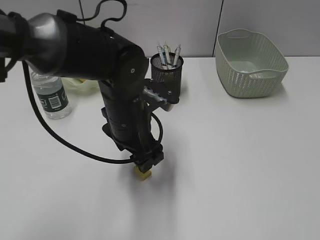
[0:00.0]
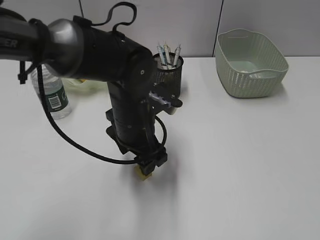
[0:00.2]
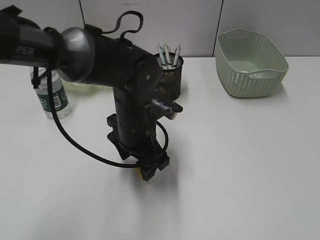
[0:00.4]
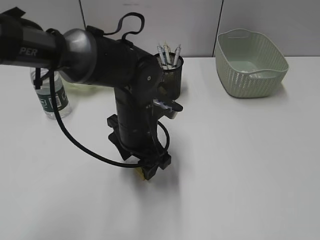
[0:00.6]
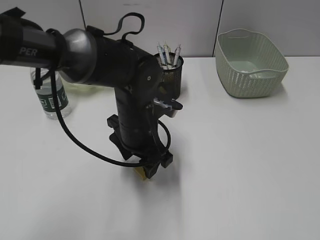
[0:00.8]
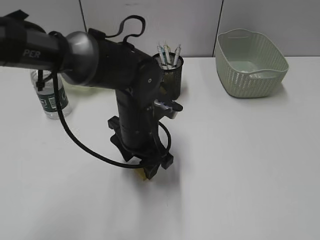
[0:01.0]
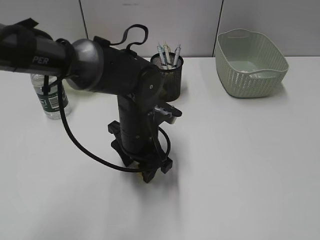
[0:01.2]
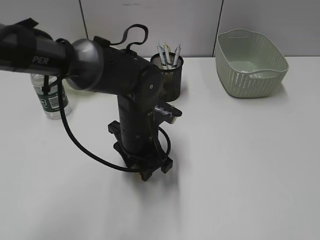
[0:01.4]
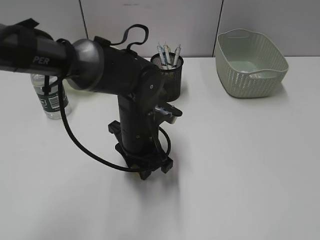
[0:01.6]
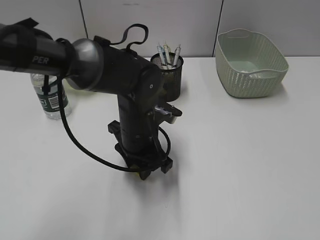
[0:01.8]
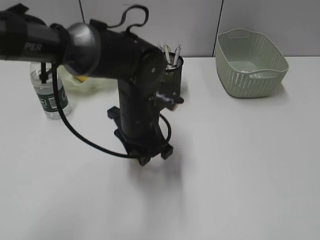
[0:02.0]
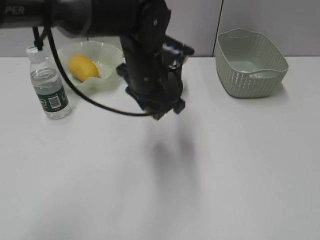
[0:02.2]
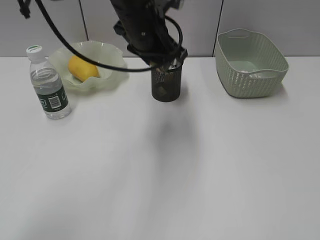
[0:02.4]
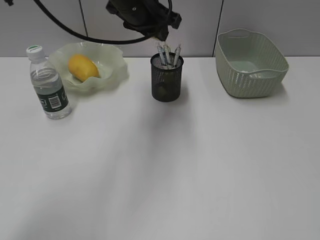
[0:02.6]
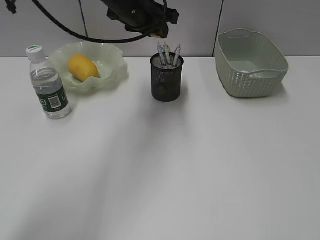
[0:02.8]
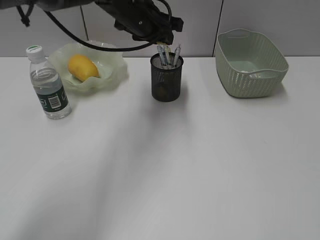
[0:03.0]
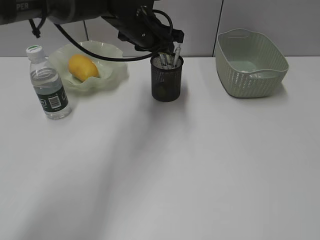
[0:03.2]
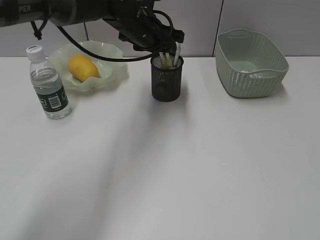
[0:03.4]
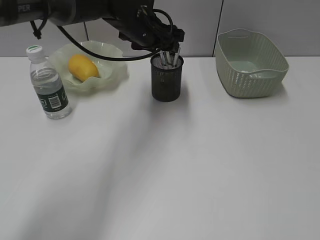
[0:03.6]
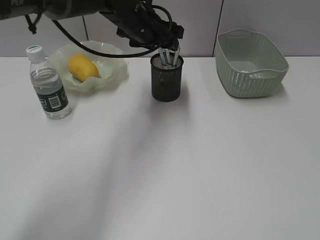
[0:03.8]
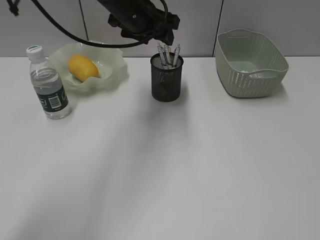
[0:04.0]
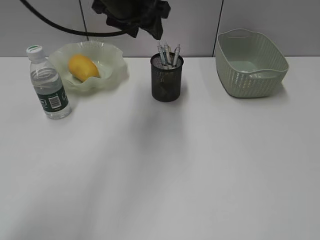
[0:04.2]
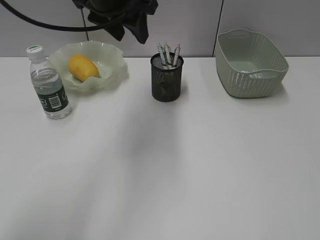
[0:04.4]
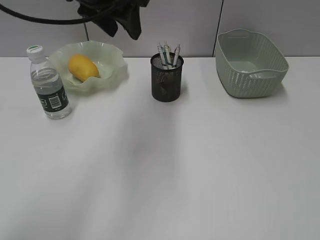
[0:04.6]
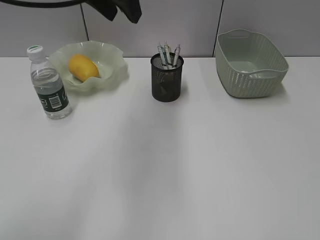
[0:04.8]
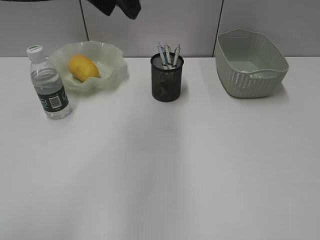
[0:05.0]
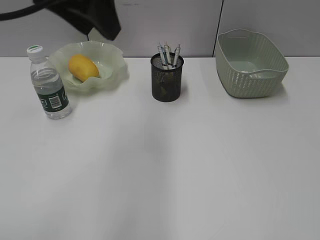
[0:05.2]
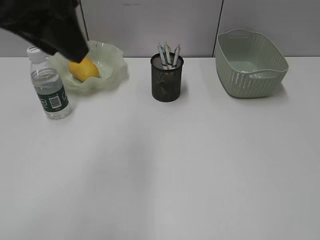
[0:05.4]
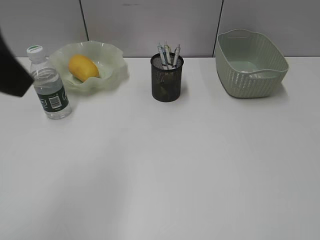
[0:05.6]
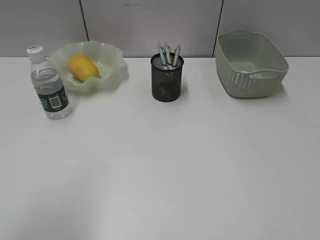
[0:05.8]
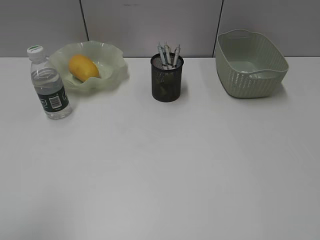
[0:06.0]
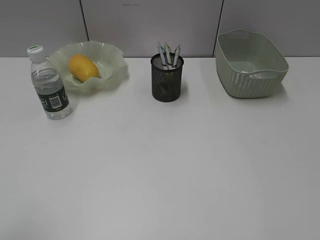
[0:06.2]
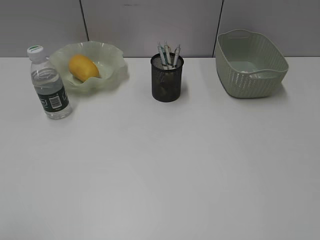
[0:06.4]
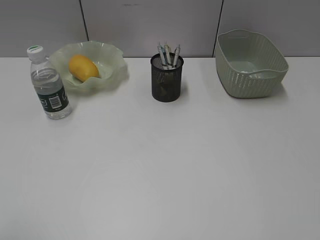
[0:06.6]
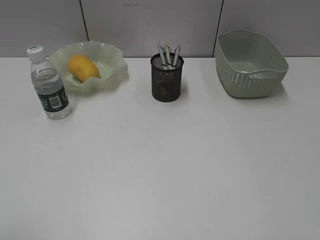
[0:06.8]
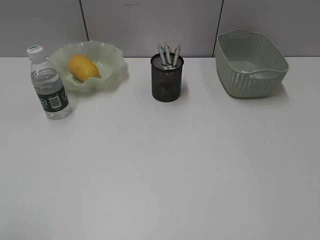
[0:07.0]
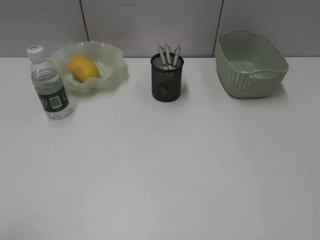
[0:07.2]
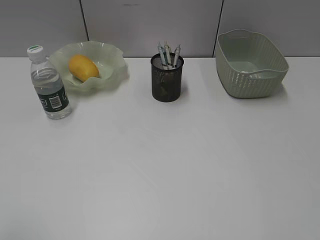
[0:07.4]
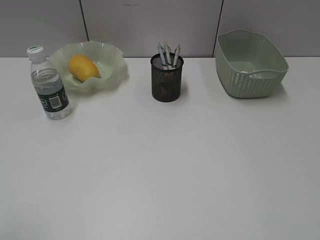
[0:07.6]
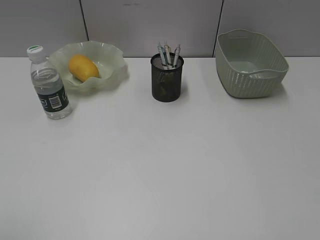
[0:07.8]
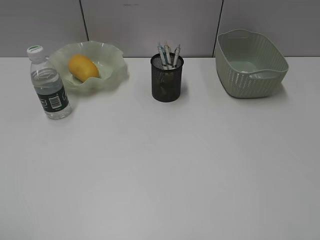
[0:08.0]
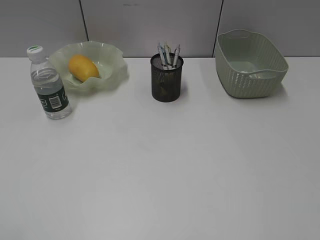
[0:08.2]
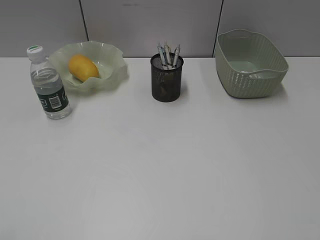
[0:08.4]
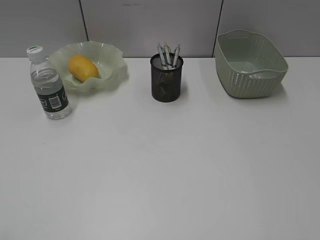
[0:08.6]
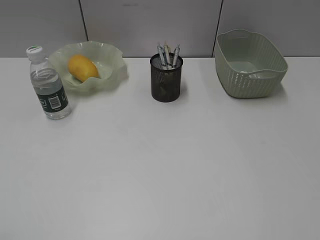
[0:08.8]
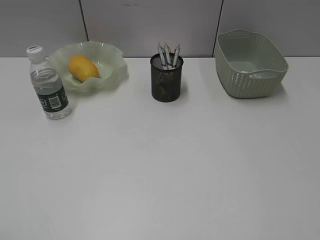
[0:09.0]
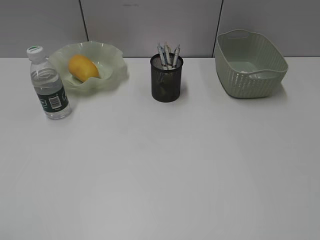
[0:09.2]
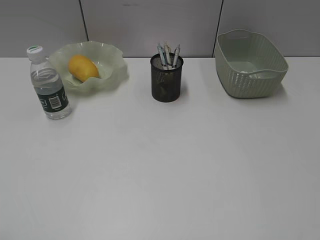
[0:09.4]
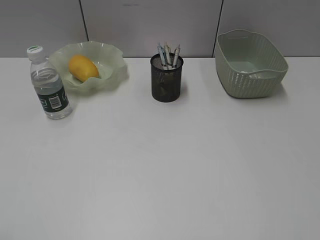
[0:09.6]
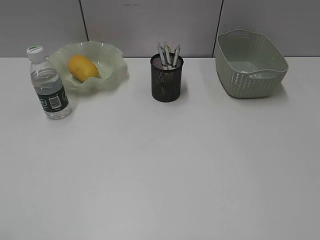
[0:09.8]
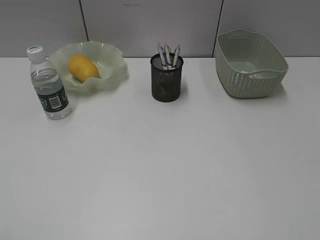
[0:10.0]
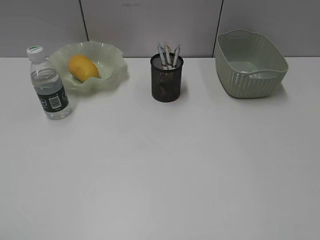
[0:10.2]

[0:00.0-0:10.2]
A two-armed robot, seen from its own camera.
Step, 0:01.8 to 0:03.6: Place the eraser in pen holder with left gripper.
0:00.0 to 0:01.4: The left gripper closes its fingers.
0:01.4 to 0:03.0: The left gripper shifts roughly 20 cm forward and upward.
0:03.0 to 0:04.4: The left gripper heads upward and backward, covering some 10 cm.
0:04.4 to 0:05.8: The left gripper moves backward and to the left, roughly 30 cm.
0:08.8 to 0:10.2: The two grippers keep their place.

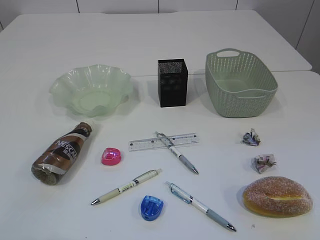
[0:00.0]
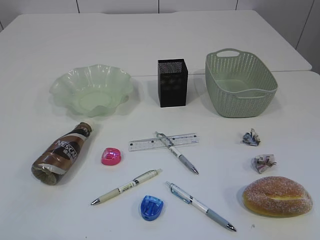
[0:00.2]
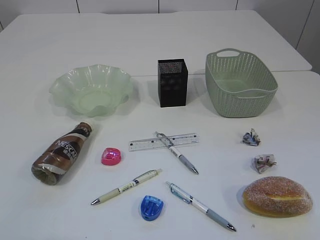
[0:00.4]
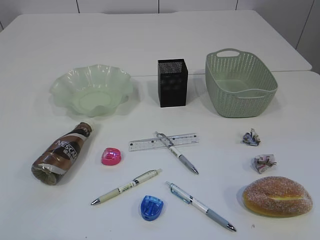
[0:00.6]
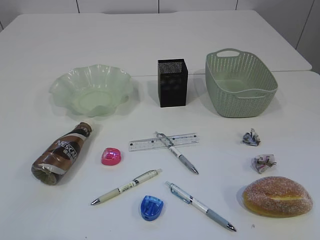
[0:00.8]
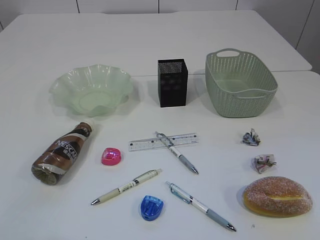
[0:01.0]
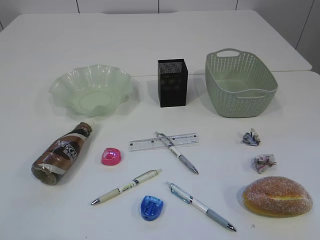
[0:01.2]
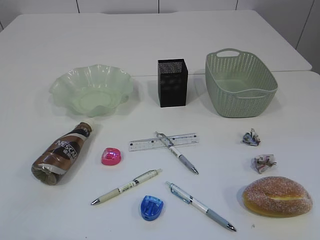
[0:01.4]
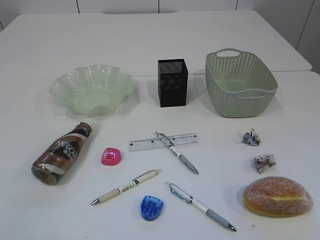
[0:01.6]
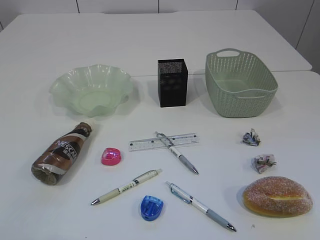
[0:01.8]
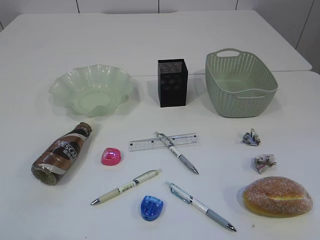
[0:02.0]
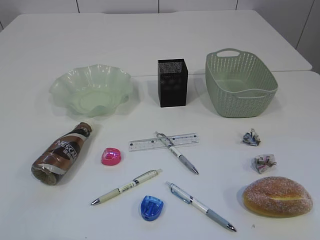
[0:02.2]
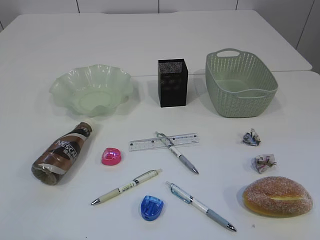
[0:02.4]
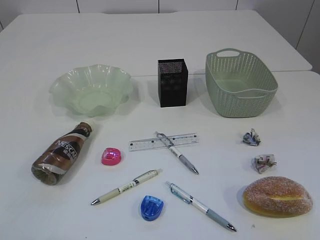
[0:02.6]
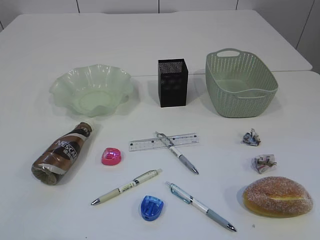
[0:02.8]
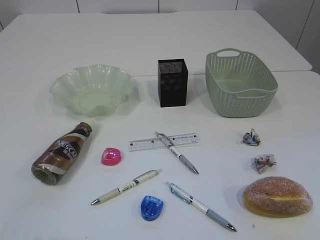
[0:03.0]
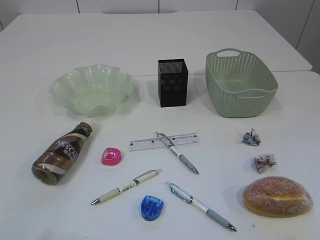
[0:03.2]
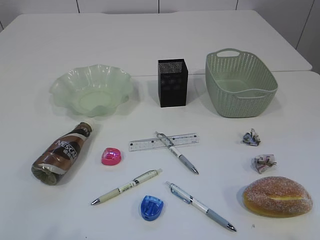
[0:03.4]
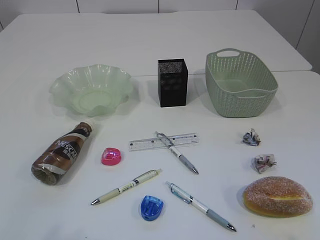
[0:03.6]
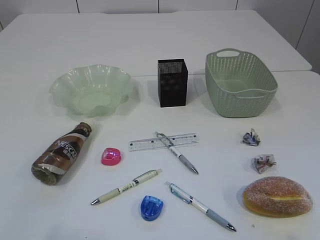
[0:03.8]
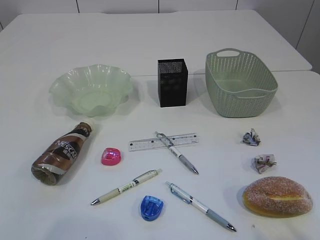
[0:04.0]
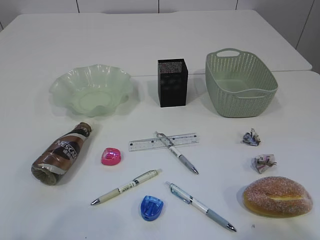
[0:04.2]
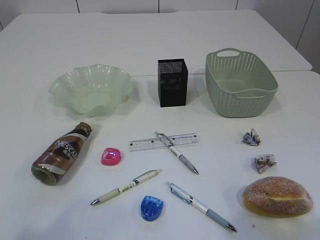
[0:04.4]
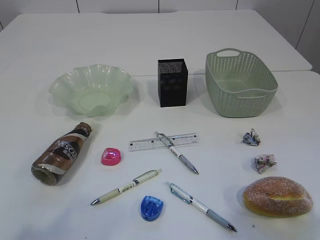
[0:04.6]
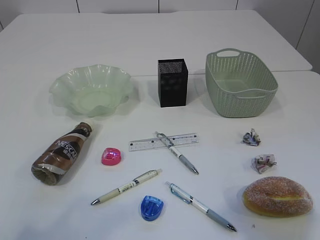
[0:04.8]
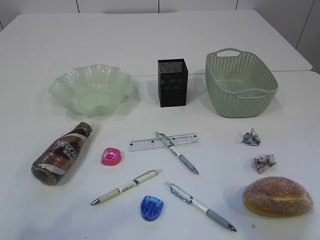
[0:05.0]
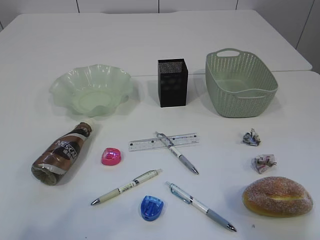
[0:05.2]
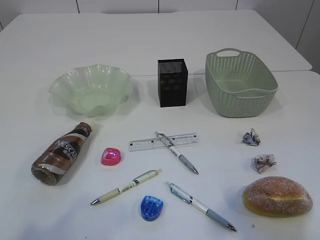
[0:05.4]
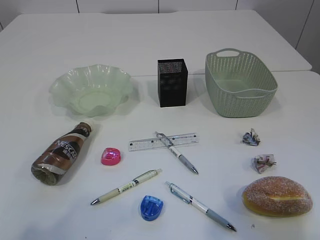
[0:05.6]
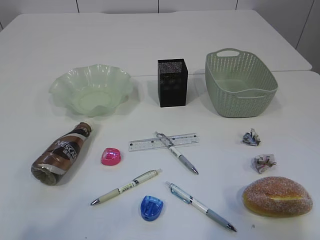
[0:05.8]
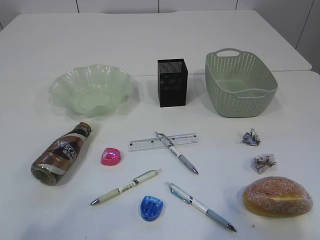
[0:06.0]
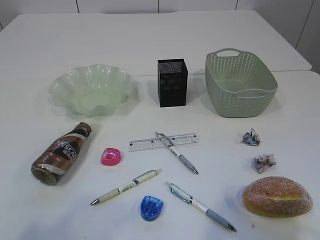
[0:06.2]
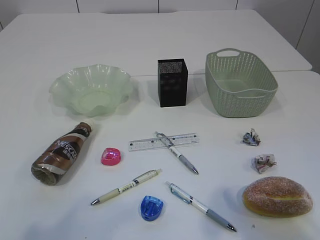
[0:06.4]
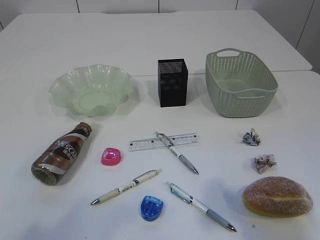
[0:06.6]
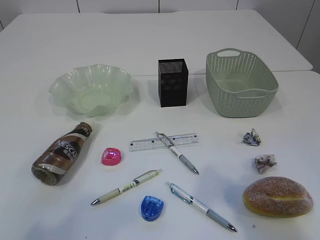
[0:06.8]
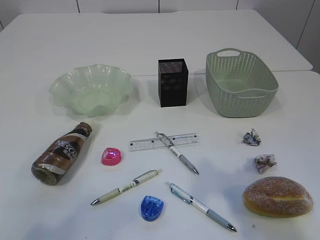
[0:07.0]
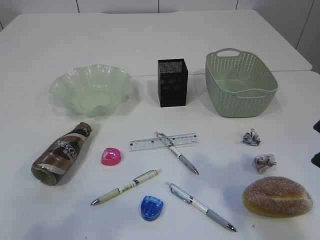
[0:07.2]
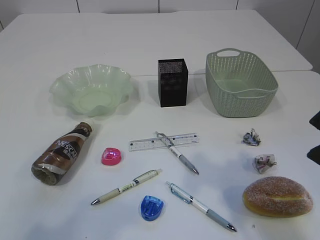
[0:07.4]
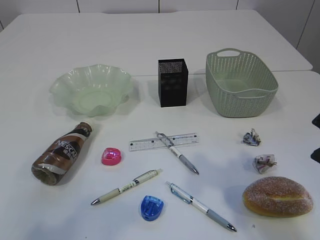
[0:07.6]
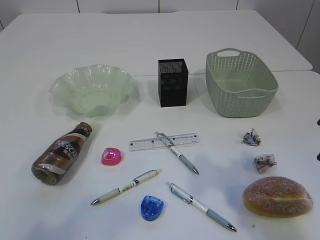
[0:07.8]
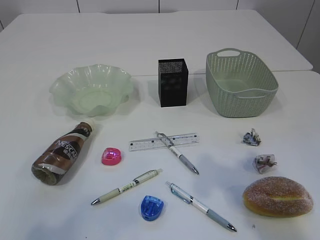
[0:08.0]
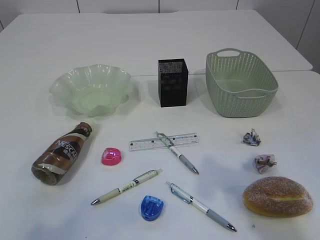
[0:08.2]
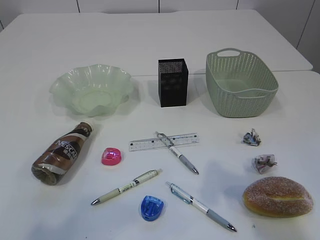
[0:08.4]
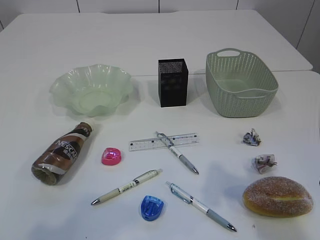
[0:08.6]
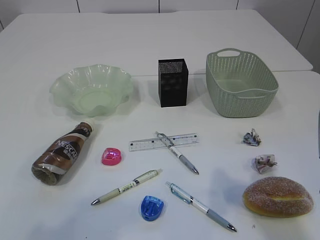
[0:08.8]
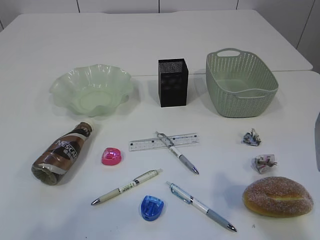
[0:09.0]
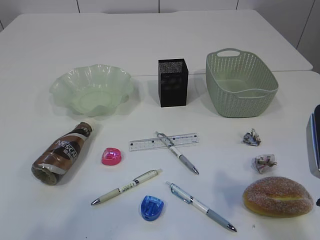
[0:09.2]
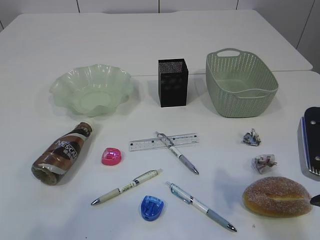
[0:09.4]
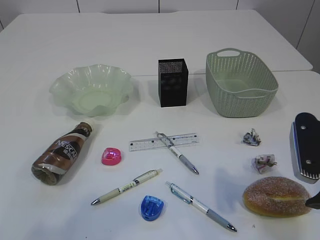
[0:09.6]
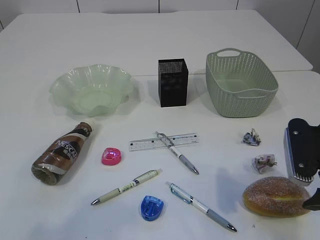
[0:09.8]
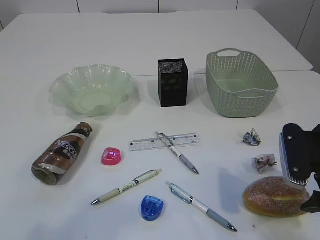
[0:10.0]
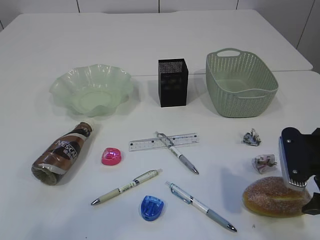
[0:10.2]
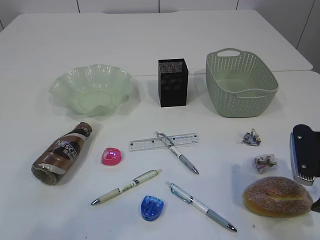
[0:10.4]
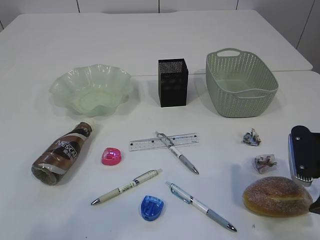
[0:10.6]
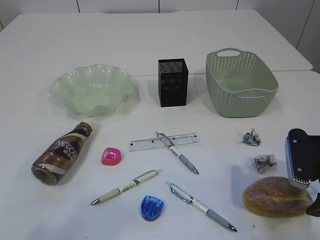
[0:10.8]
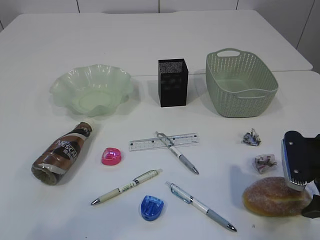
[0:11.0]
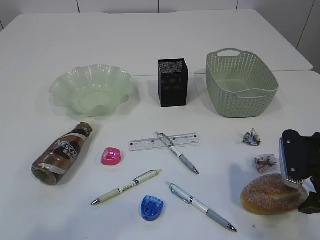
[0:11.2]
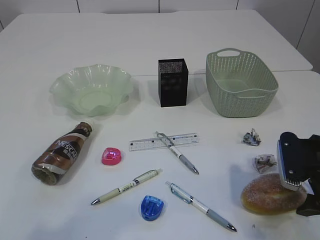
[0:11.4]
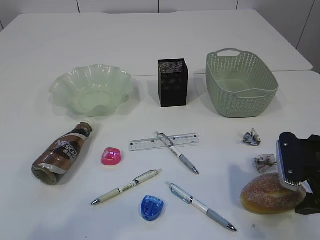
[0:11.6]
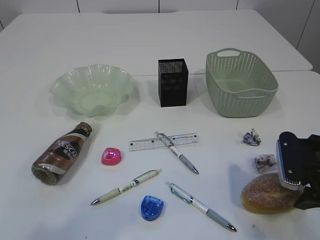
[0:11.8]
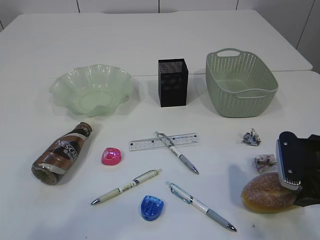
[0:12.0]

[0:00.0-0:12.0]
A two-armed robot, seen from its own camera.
0:03.0 to 0:04.4: The right gripper moves forward, some 5 cm.
0:06.0 to 0:07.6: The right gripper goes approximately 10 cm forward.
0:07.6 to 0:09.0: The right gripper shifts approximately 5 cm downward.
0:09.0 to 0:10.4: The right gripper travels downward and forward by about 10 cm.
0:10.4 to 0:12.0: The right gripper closes up.
